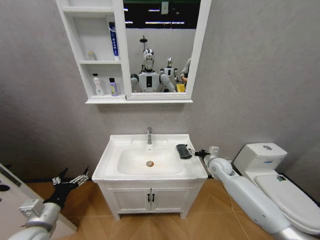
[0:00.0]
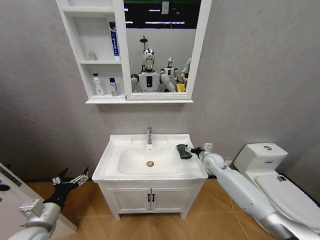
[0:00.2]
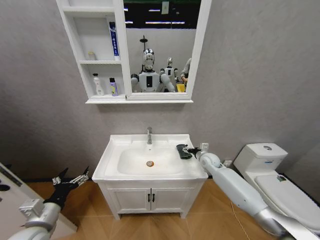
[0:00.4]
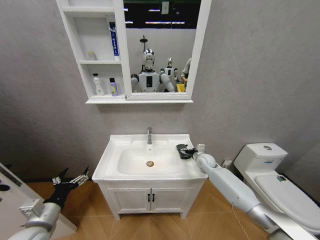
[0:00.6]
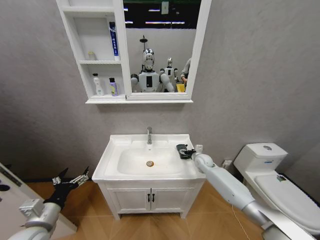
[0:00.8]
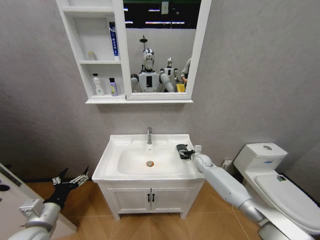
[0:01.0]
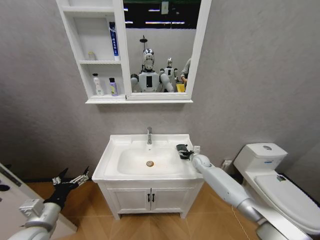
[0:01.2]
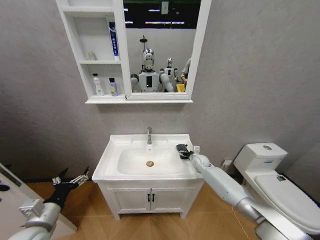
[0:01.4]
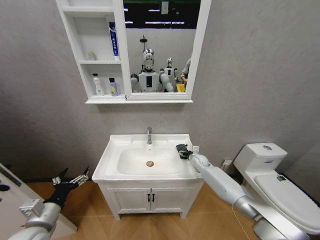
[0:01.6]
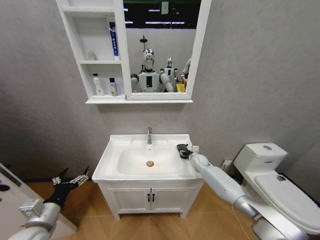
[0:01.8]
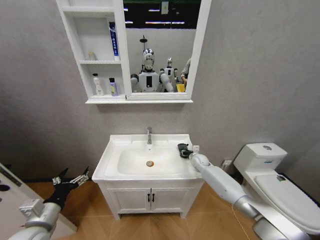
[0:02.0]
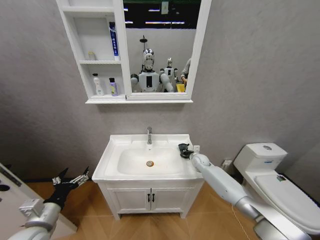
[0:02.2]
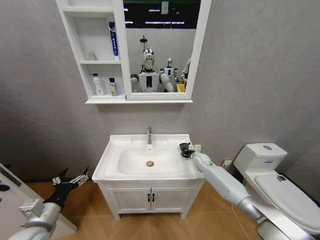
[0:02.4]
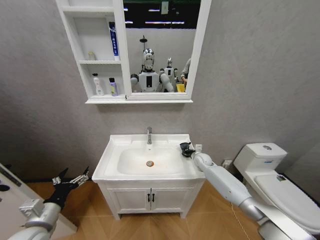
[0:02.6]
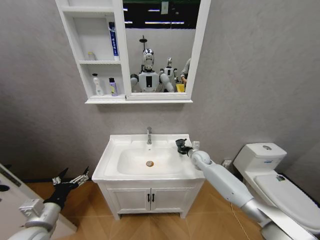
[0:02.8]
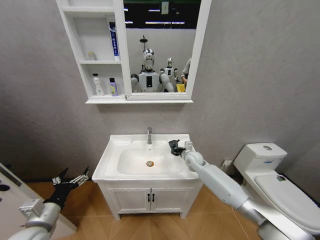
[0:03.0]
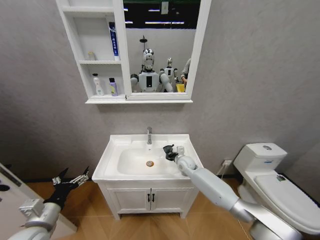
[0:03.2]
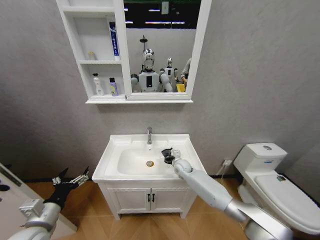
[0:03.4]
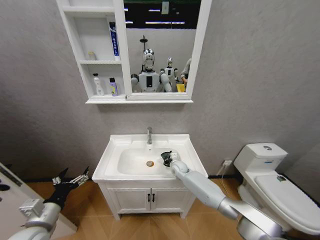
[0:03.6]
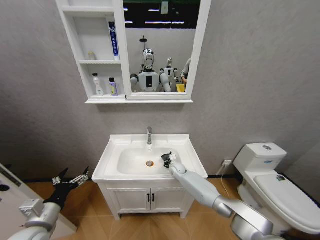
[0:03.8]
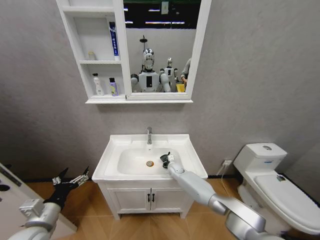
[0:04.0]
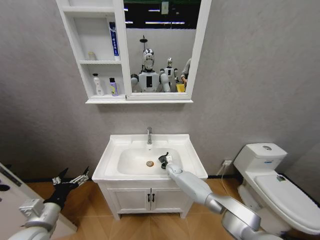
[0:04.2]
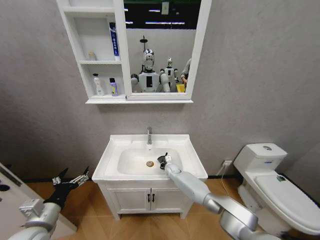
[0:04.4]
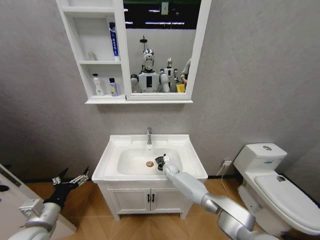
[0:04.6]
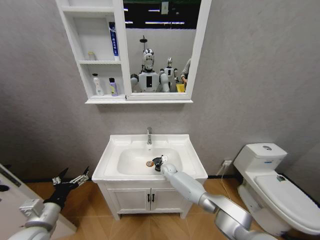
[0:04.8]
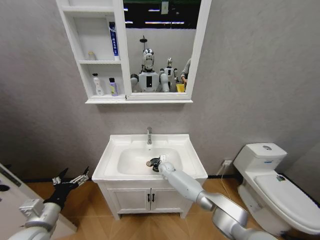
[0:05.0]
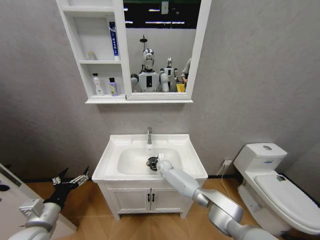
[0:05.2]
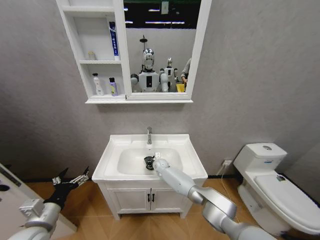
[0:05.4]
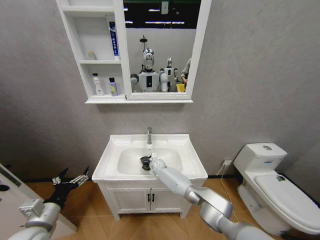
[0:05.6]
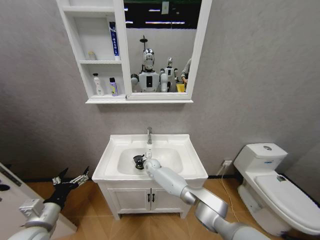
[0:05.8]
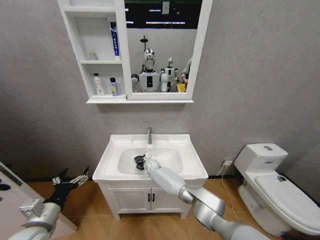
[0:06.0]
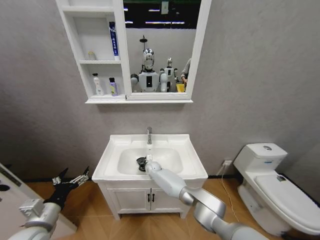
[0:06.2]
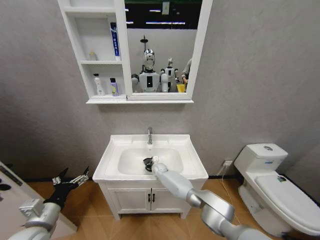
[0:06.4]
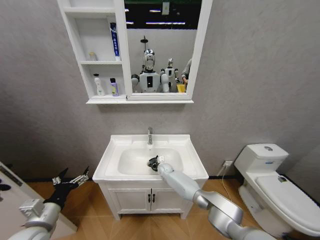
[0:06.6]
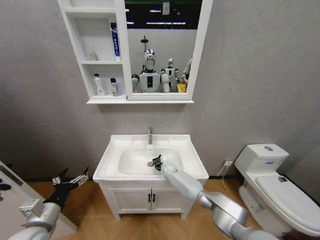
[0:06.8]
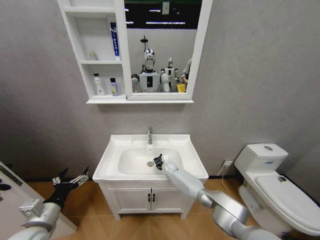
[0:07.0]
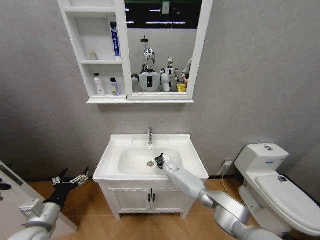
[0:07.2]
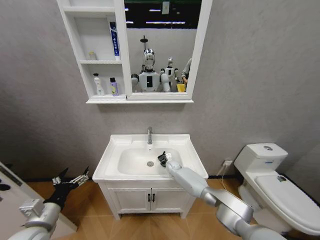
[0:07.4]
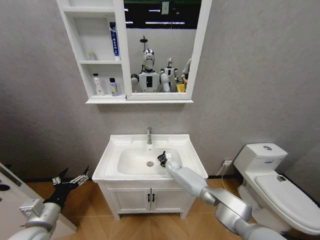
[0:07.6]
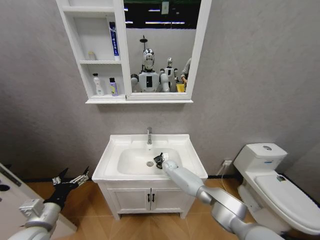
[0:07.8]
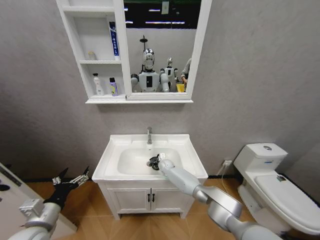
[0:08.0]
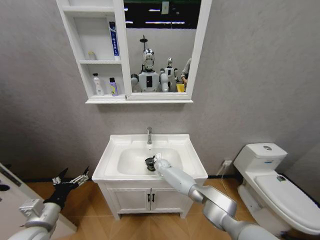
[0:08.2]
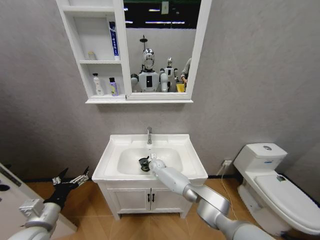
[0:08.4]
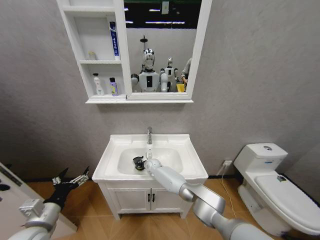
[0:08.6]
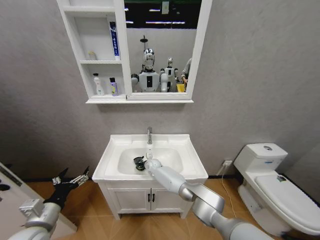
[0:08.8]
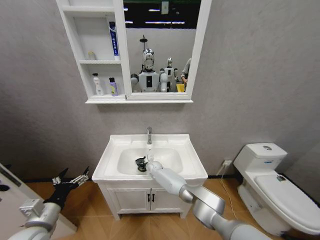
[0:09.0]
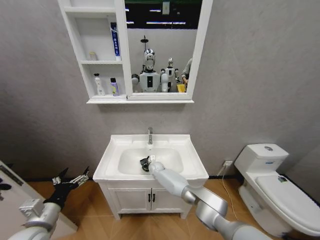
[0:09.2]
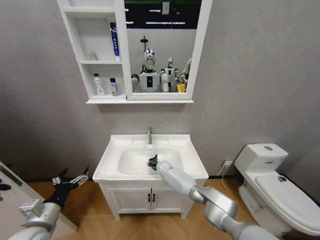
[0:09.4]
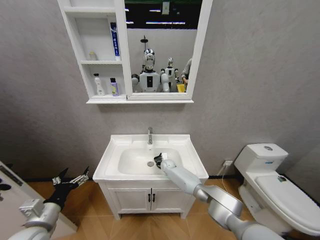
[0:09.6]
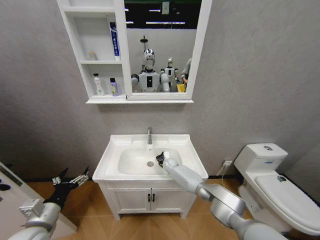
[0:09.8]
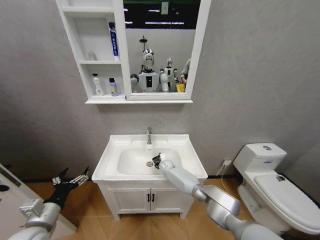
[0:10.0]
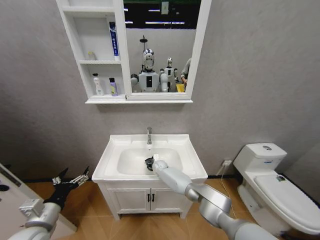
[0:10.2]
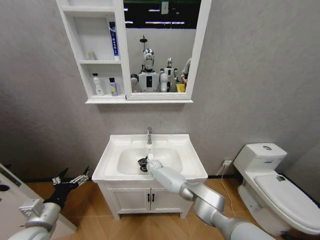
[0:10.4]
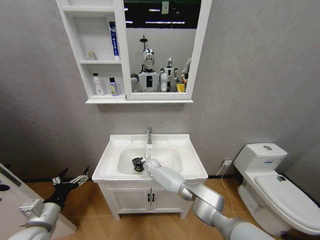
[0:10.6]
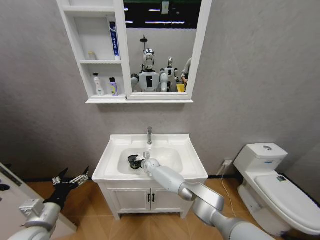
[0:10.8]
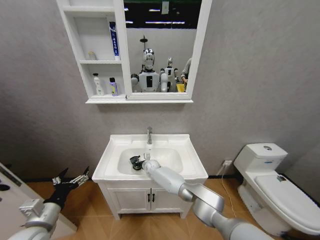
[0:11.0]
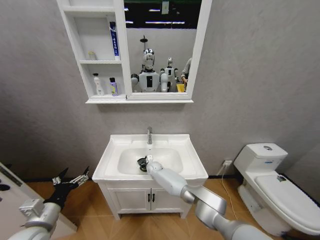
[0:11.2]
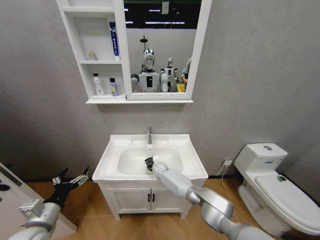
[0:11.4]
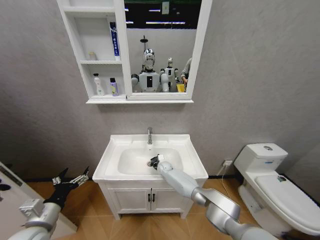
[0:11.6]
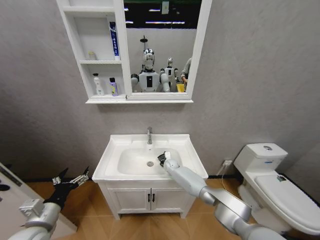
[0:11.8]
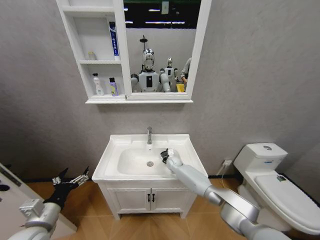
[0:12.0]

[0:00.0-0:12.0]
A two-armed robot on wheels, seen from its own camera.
Task of the whole recording: Move facial cleanser and shampoo from washbasin to cabinet, then wipe washbasin with towel.
0:00.0 to 0:01.6: The right gripper is displaced forward and downward by roughly 15 cm.
0:01.6 to 0:03.0: The right gripper travels upward and to the left by approximately 10 cm, and closes its fingers.
0:03.0 to 0:04.4: The right gripper goes some 20 cm downward and to the left.
0:04.4 to 0:06.0: The right gripper travels to the left by roughly 15 cm.
0:06.0 to 0:07.6: The right gripper is displaced to the right by approximately 15 cm.
0:07.6 to 0:09.0: The right gripper is displaced to the left by some 15 cm.
0:09.0 to 0:10.4: The right gripper moves about 10 cm to the right and comes back.
0:10.4 to 0:12.0: The right gripper heads to the right, covering about 15 cm.

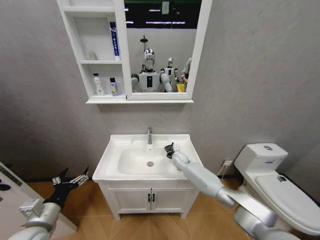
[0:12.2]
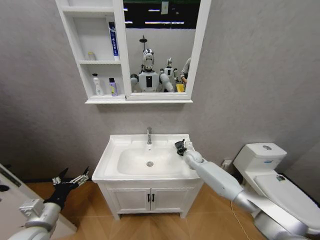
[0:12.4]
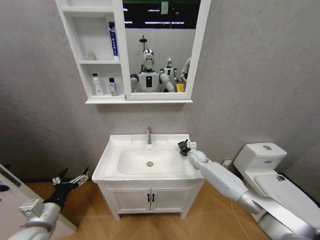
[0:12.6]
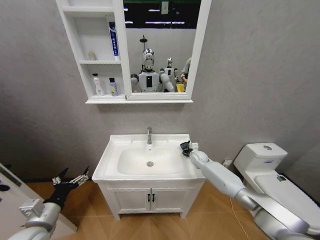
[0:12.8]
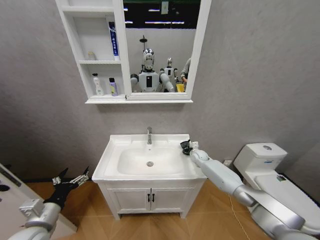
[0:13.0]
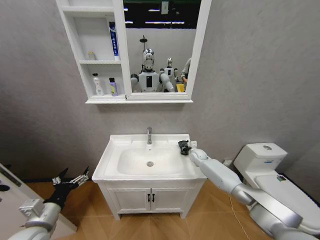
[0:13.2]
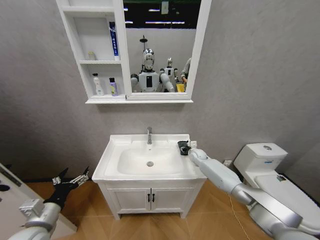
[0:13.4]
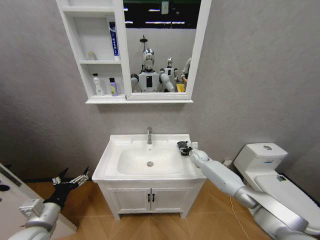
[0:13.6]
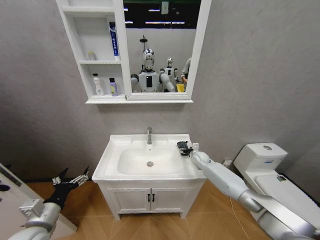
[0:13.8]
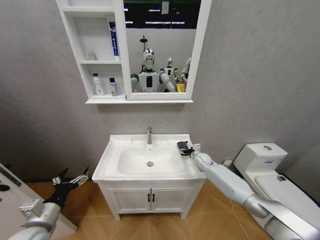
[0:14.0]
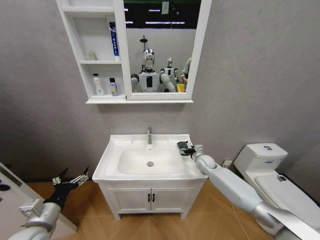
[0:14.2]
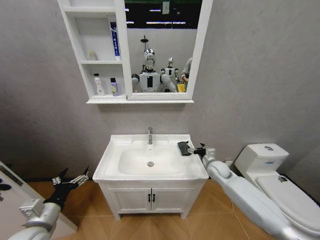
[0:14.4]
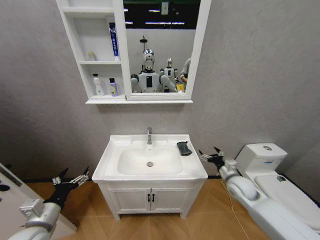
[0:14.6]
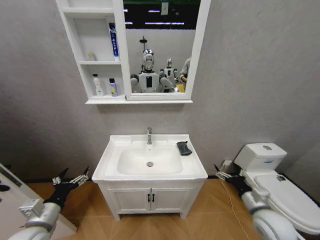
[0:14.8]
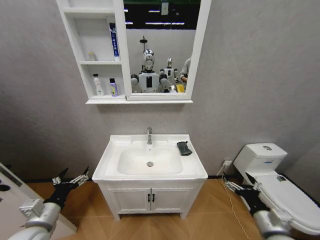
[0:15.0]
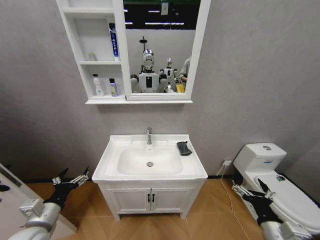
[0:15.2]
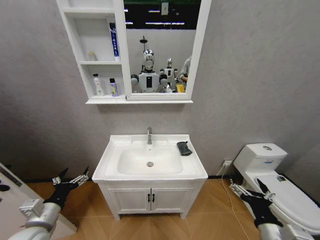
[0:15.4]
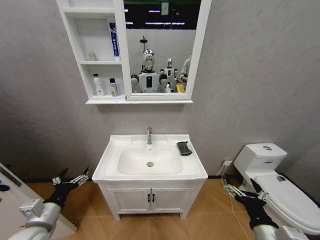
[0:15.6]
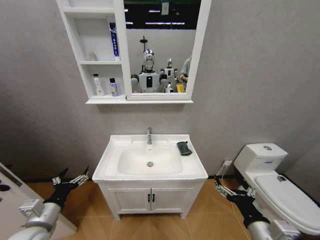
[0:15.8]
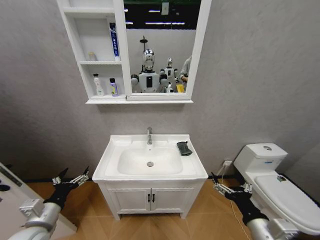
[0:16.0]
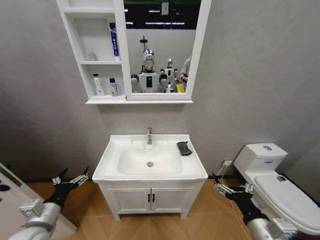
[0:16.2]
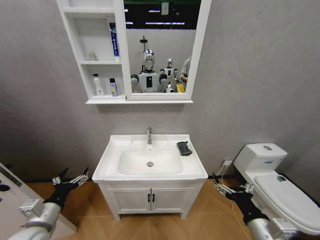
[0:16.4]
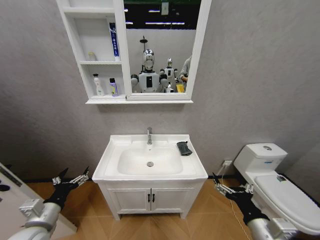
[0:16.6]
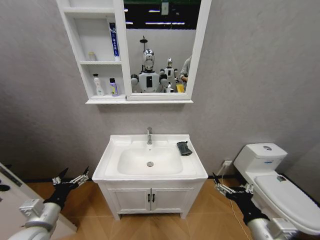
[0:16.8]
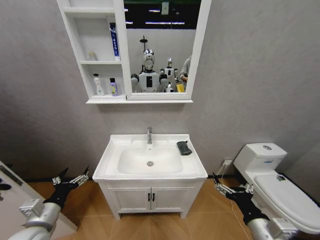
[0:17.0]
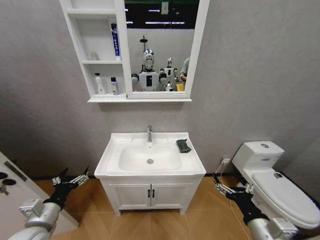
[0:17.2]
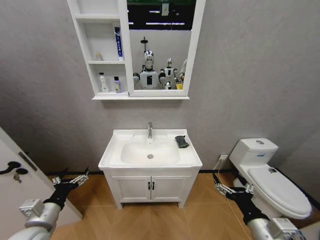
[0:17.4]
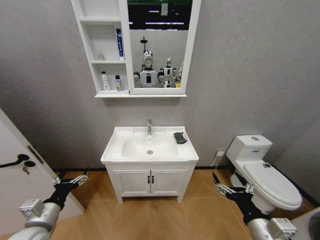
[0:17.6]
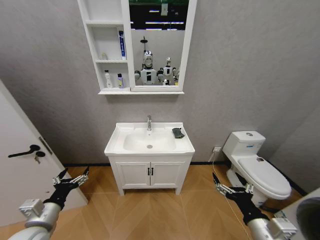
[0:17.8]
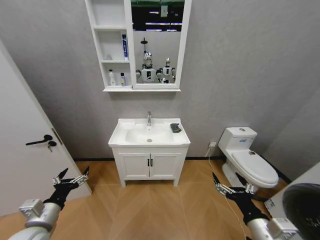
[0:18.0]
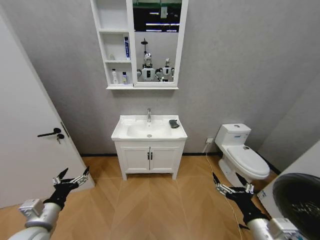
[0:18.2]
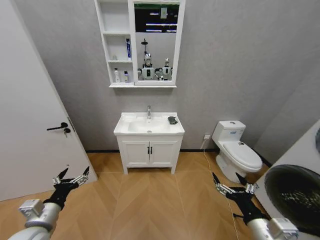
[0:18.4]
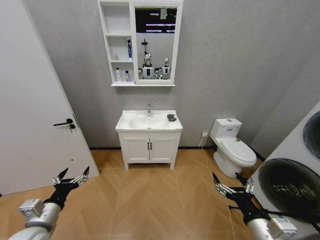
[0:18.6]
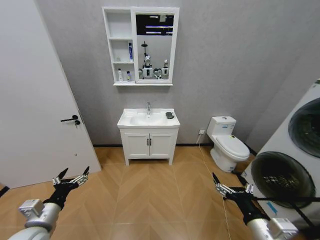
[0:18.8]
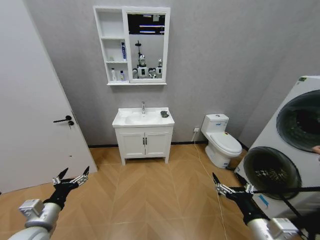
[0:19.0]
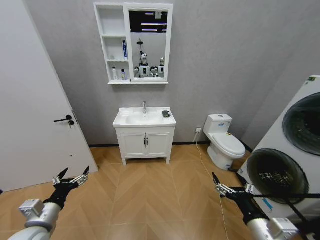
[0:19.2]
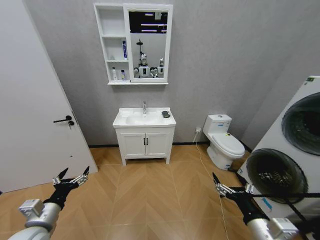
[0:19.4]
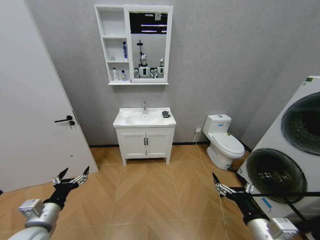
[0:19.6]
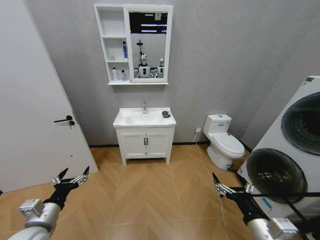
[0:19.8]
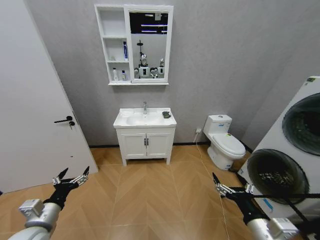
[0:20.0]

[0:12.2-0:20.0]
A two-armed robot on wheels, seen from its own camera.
Task of the whole recording: Move facial cleanser and shampoo from washbasin to cabinet, then wipe washbasin with towel.
0:12.2 to 0:13.8: The right gripper travels to the right by some 10 cm, and opens its fingers.
0:13.8 to 0:15.4: The right gripper is displaced backward by about 40 cm.
0:15.4 to 0:16.8: There are only small adjustments of the grippers.
